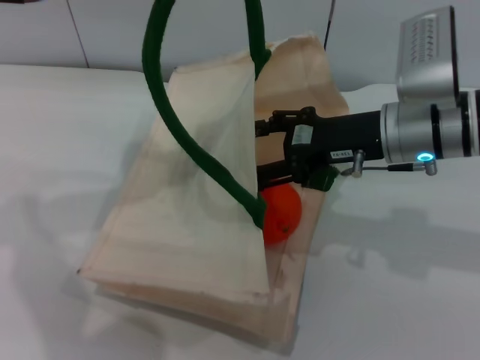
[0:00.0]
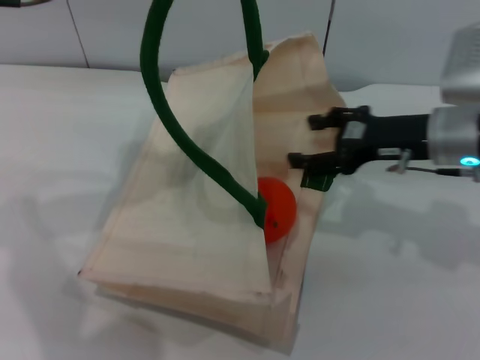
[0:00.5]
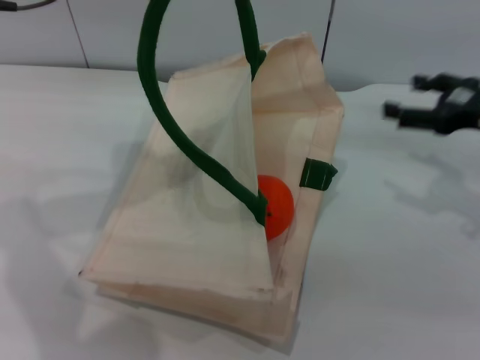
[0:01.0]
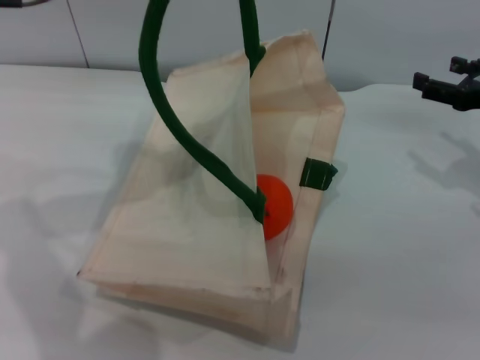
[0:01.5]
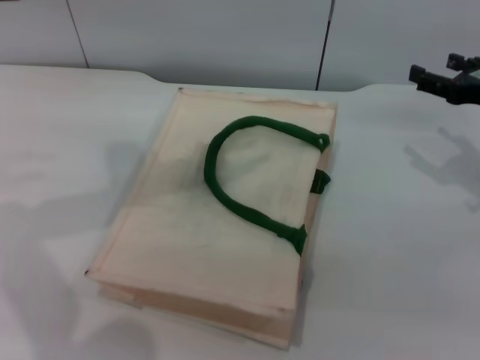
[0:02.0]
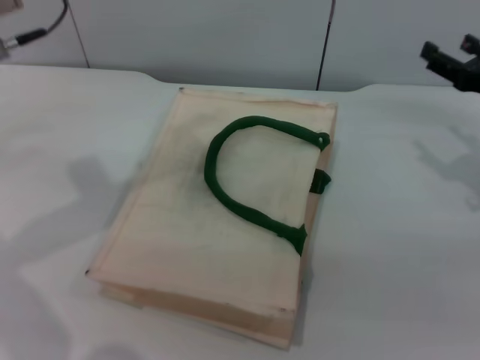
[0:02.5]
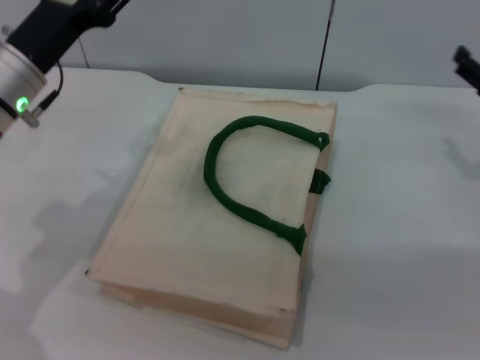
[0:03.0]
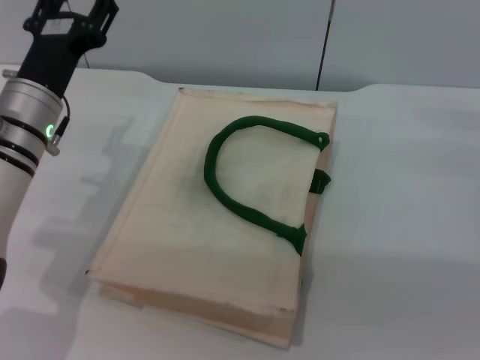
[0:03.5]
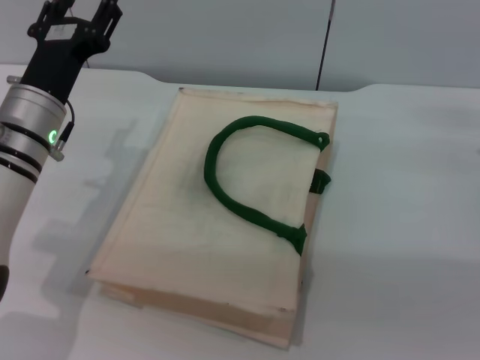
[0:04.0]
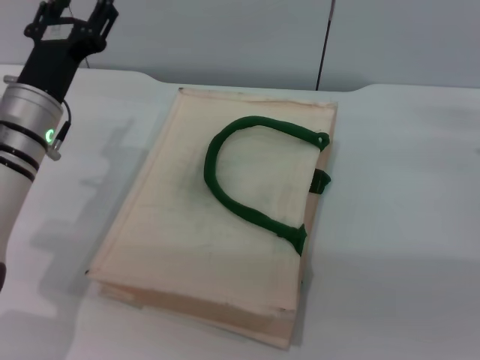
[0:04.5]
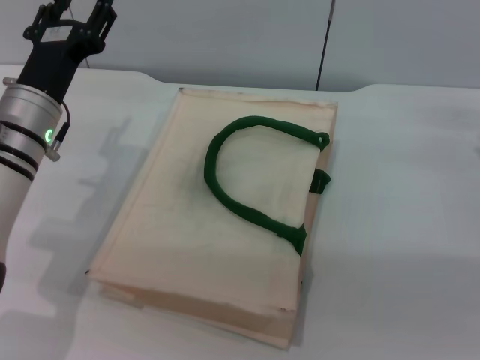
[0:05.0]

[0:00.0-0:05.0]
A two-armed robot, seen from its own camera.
Task of the whole recording: pick up the orange from the table and place it in the white handbag.
0:00.0 to 0:02.5: The left gripper travels downward by some 5 cm, and opens. The right gripper heads to the right, covering some 15 cm.
0:02.5 to 0:05.0: The left gripper moves downward, some 15 cm.

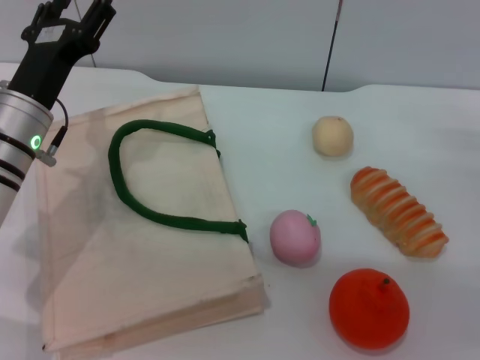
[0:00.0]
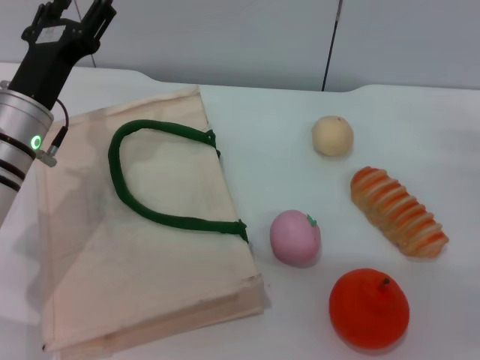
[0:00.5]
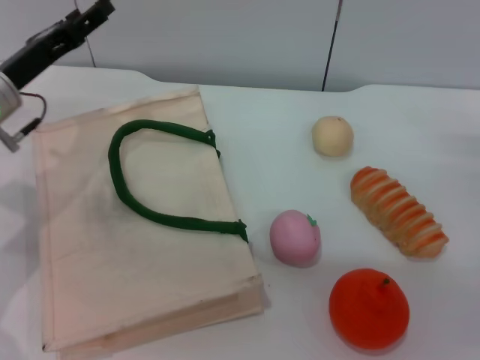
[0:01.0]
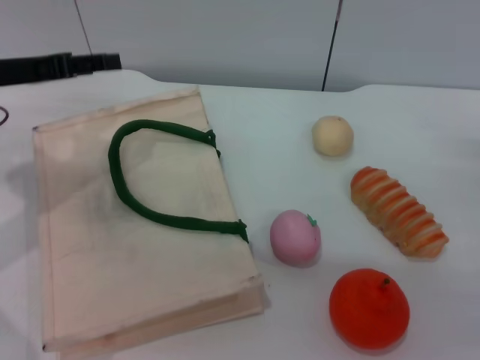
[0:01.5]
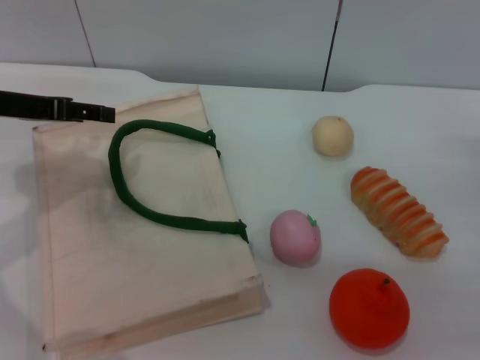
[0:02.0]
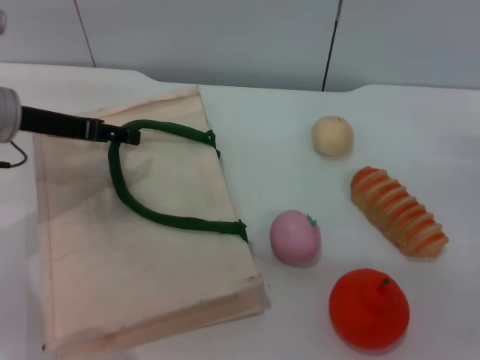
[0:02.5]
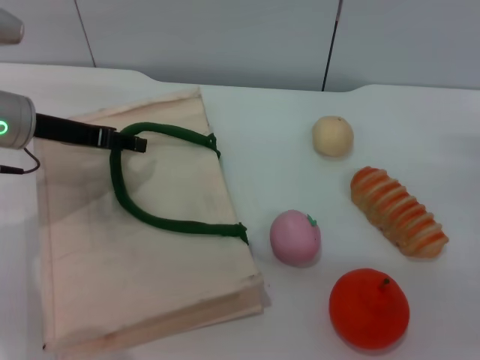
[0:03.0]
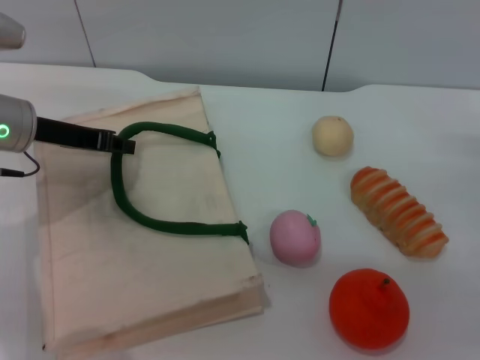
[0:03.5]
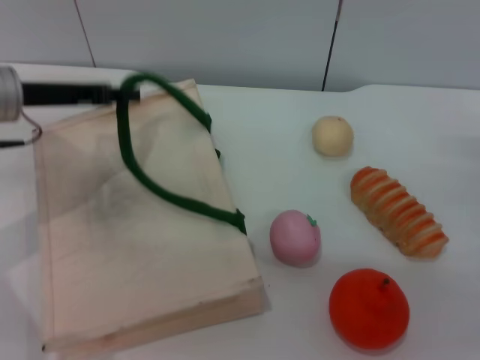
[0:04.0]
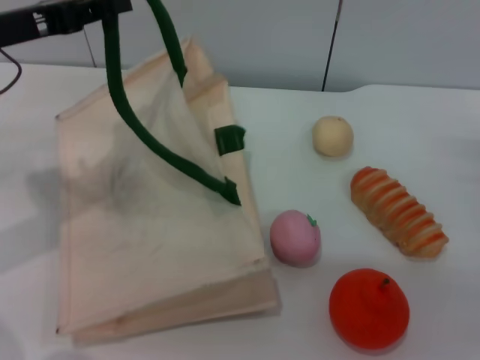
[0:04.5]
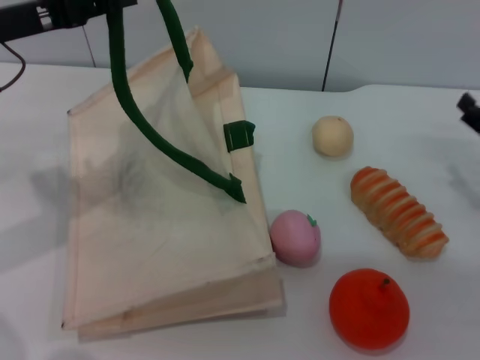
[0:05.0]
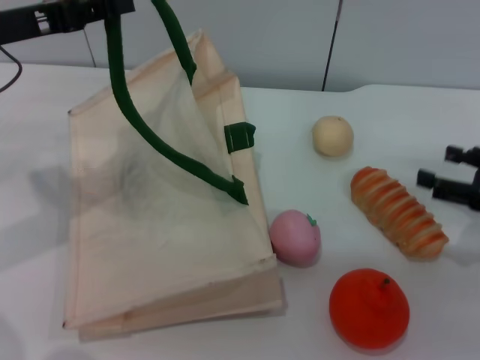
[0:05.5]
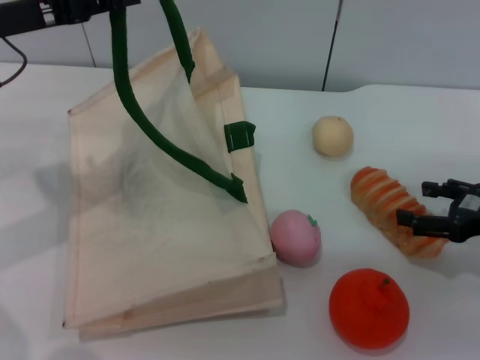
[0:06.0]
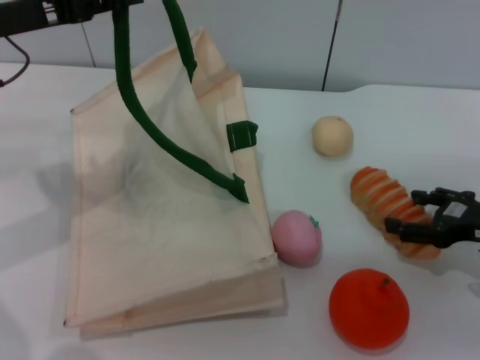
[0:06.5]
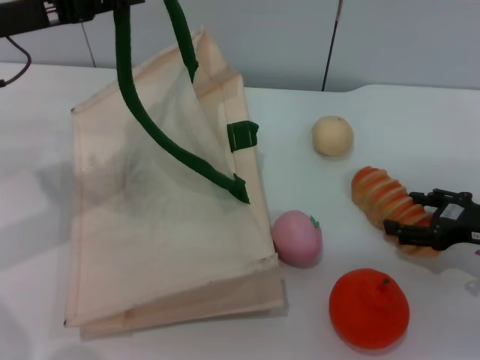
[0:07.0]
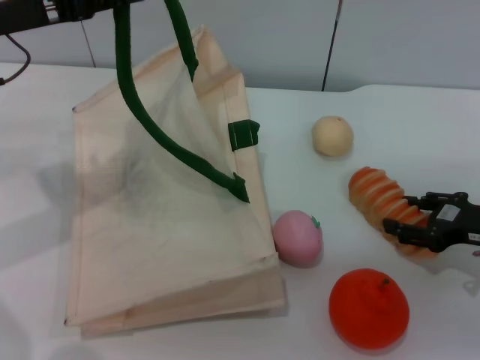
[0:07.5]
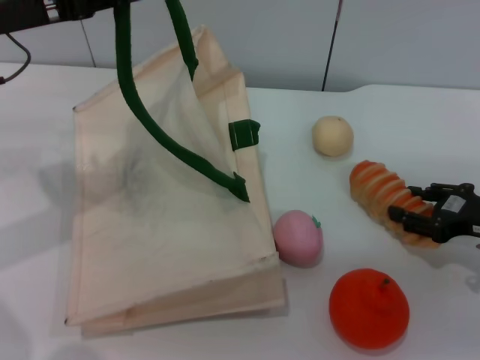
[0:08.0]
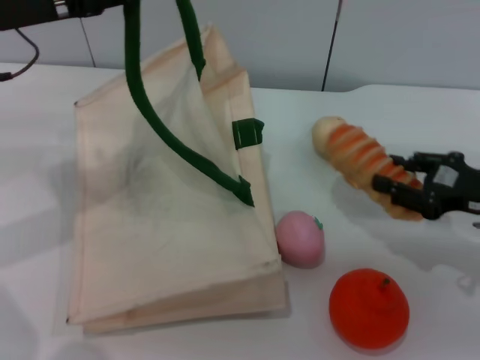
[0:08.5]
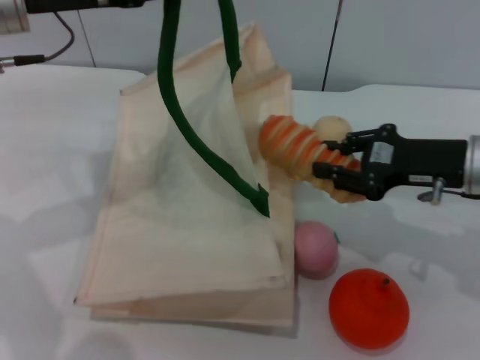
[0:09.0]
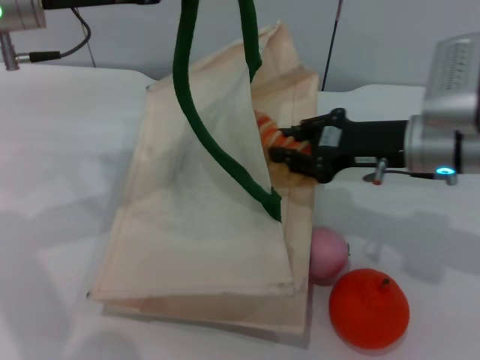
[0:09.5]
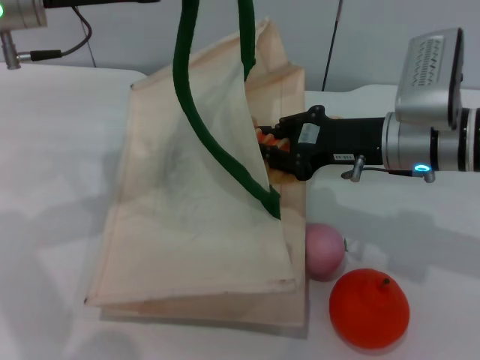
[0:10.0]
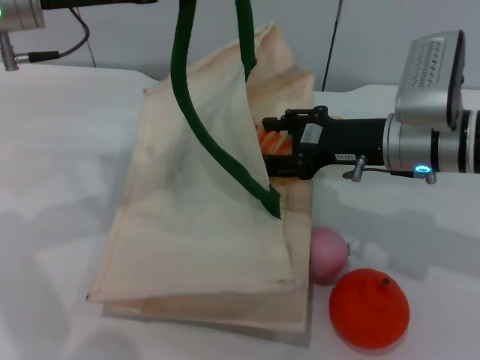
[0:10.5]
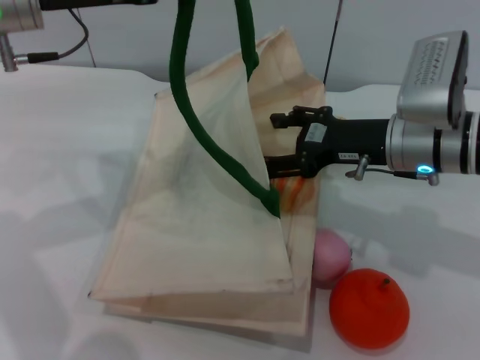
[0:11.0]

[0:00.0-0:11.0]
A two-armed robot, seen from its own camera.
Task of the whole recording: pick up the bread from the table and place it in the white handbag.
Step, 0:00.0 to 0:04.5: Lift the woven bag with the left gripper to open it.
Step, 0:05.0 to 0:08.5: Pick up the bread with the right gripper.
0:00.0 to 0:02.0: The left gripper moves to the left and upward, approximately 10 cm.
0:02.0 to 0:03.5: The left gripper moves about 5 cm, and closes its fingers.
0:03.5 to 0:05.5: The left gripper travels upward by roughly 10 cm.
0:05.5 to 0:07.5: The grippers make only small movements.
0:07.5 to 0:09.0: The left gripper moves roughly 5 cm; the right gripper travels to the left and upward by approximately 10 cm, and closes.
0:09.0 to 0:11.0: The right gripper heads to the left, covering about 5 cm, and opens up.

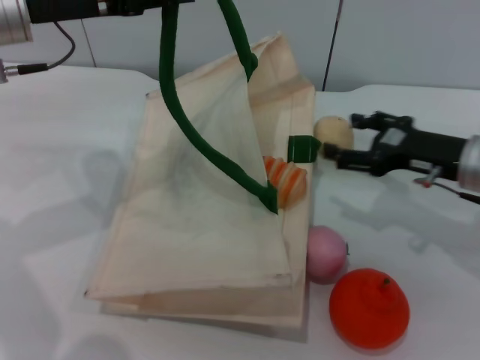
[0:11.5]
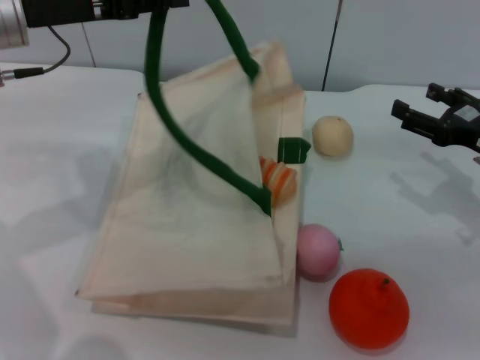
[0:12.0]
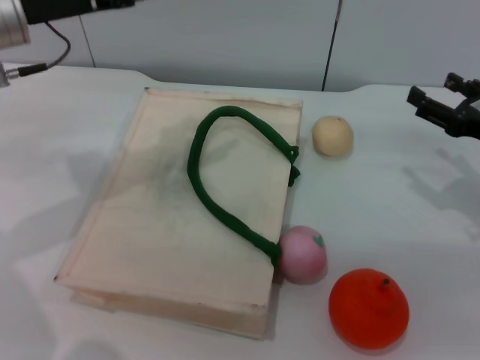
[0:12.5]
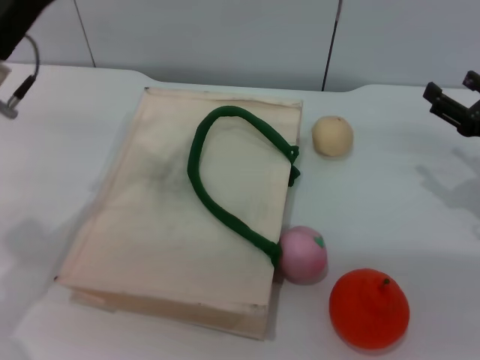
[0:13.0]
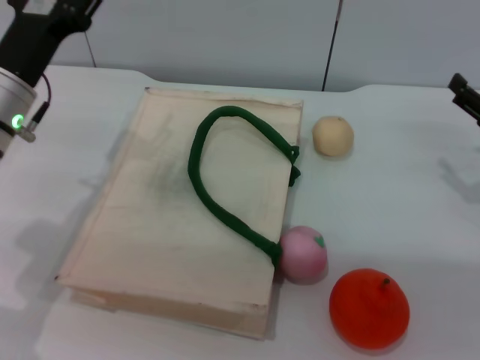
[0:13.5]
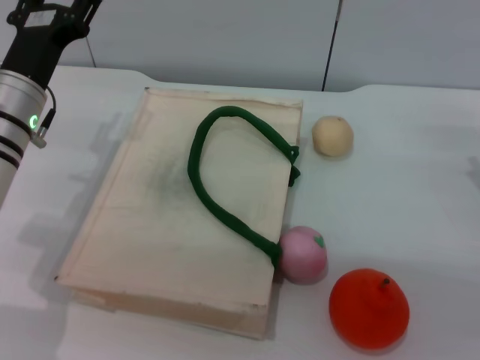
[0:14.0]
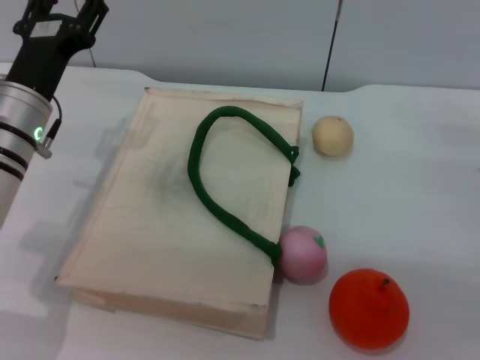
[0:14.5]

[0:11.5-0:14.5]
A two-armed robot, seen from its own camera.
Task of the whole recording: pick up the bread from the table and place it in the white handbag.
0:11.5 to 0:13.0: The left gripper travels downward by roughly 5 cm, and opens up. The right gripper moves to the right, about 5 cm.
0:13.0 to 0:14.5: The left gripper goes about 5 cm downward.

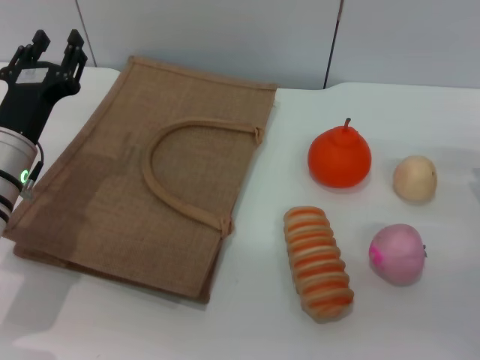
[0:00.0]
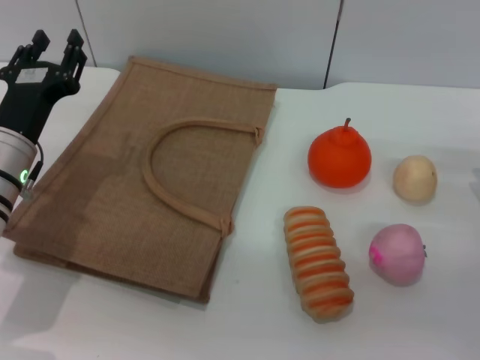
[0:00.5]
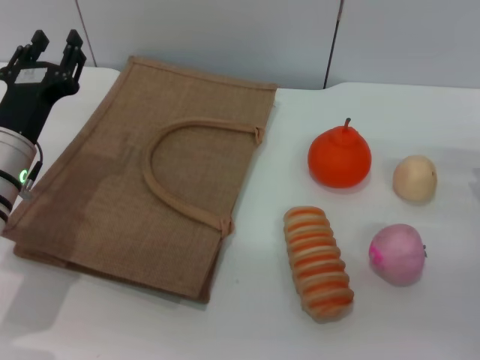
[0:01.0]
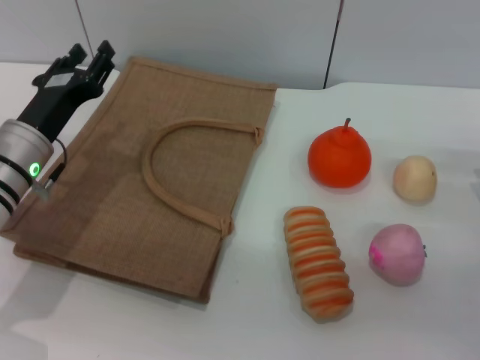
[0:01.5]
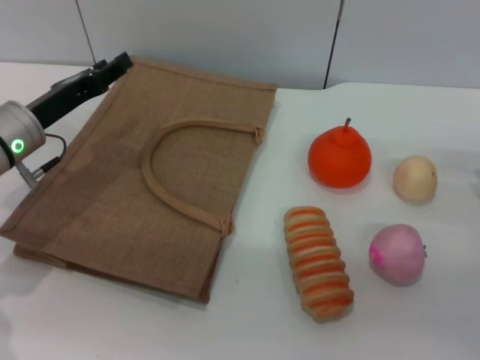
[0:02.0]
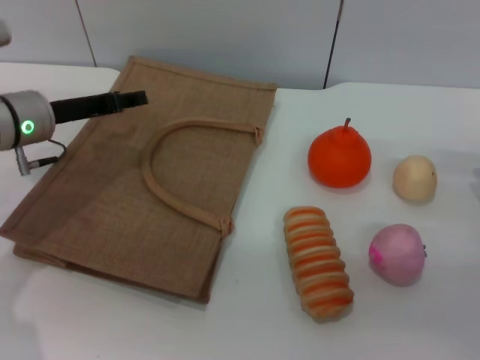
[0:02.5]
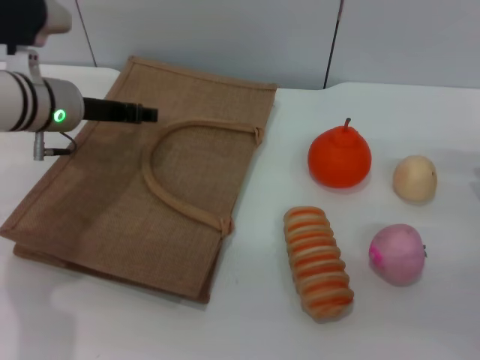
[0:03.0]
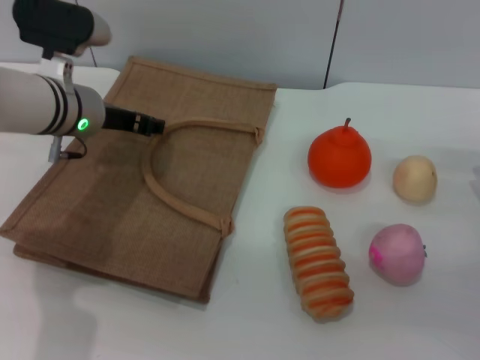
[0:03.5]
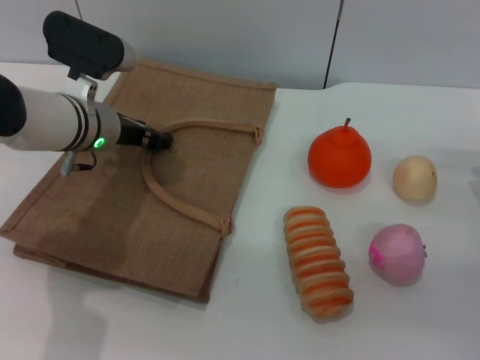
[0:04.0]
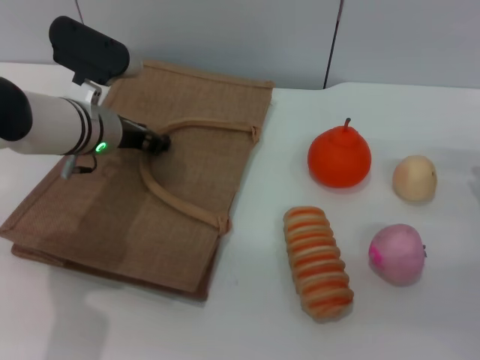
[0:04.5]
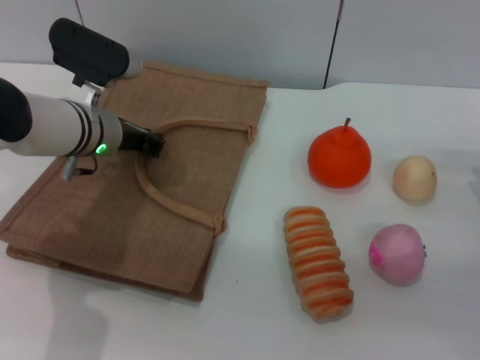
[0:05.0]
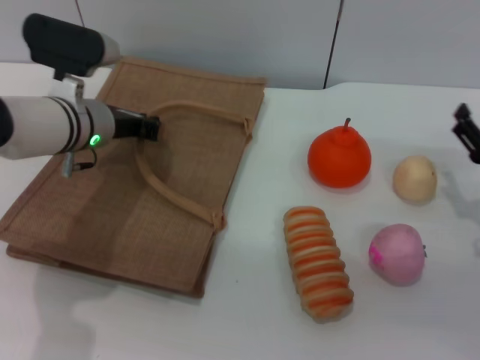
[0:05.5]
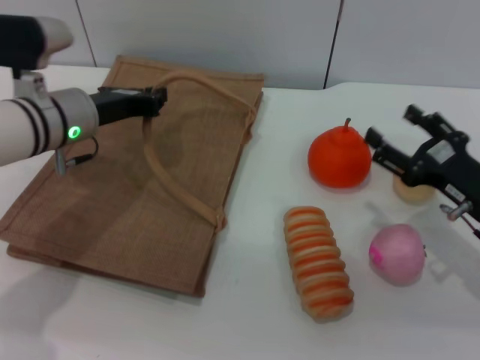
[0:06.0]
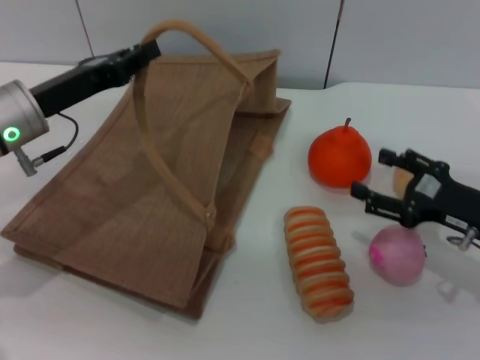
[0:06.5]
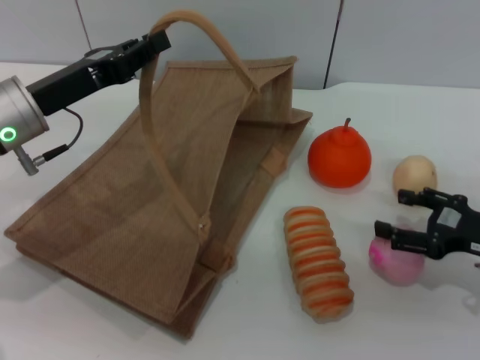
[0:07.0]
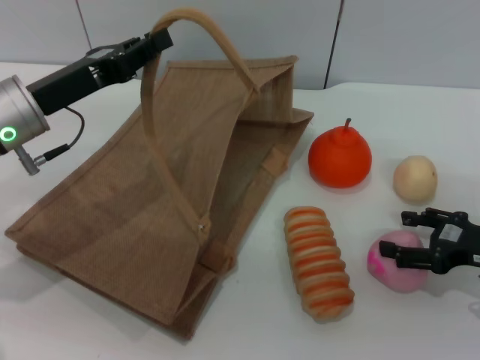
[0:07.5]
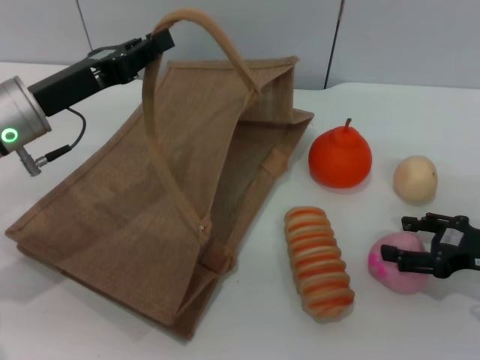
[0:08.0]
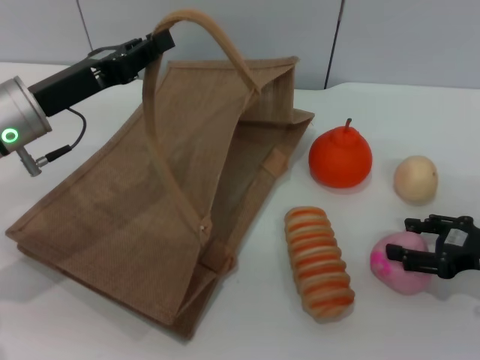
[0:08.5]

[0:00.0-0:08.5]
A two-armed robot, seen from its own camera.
Task of the whole recording: pick up the peach from the table and place it in the brown handbag.
Step, 0:00.0 to 0:05.0: Lift the woven bag with the left gripper to open it.
0:02.0 to 0:04.0: The left gripper goes about 10 cm to the right.
0:04.0 to 0:06.5: The left gripper heads to the left and backward, covering approximately 10 cm, and closes its fingers.
